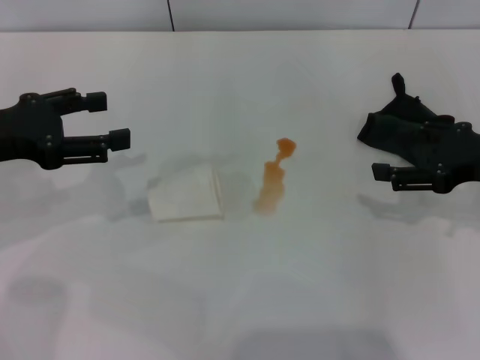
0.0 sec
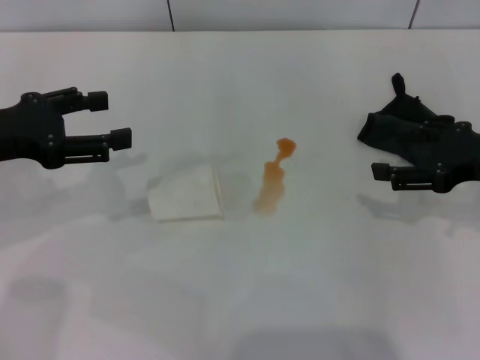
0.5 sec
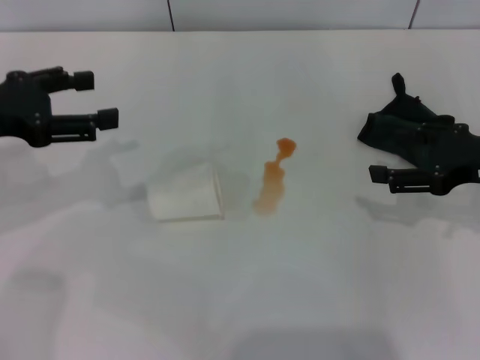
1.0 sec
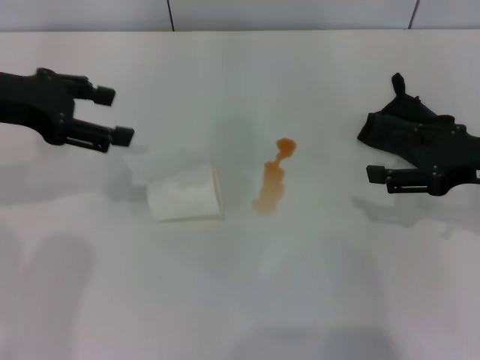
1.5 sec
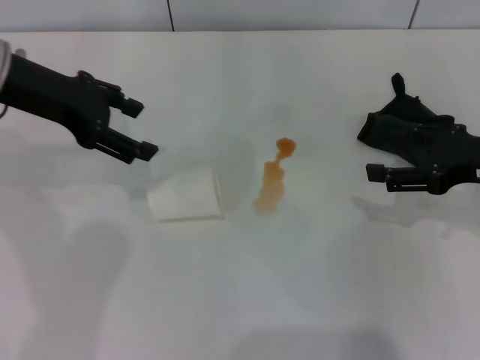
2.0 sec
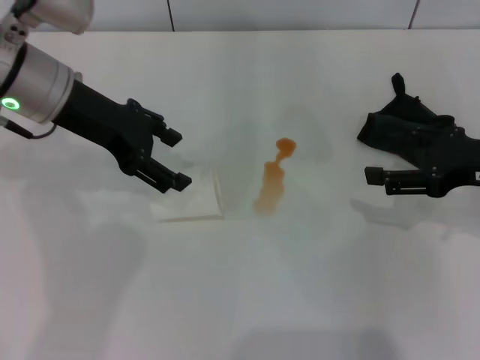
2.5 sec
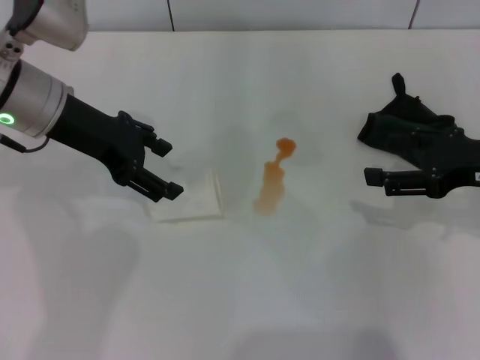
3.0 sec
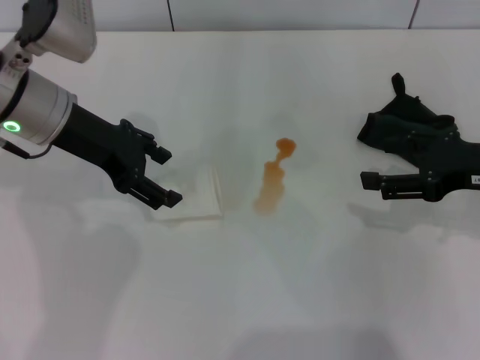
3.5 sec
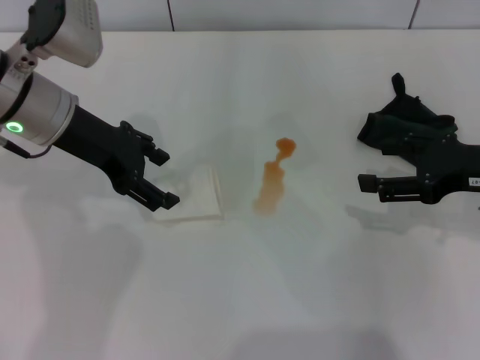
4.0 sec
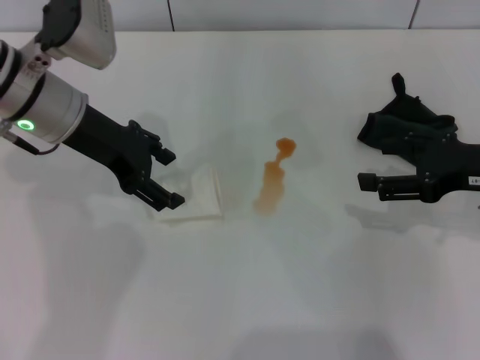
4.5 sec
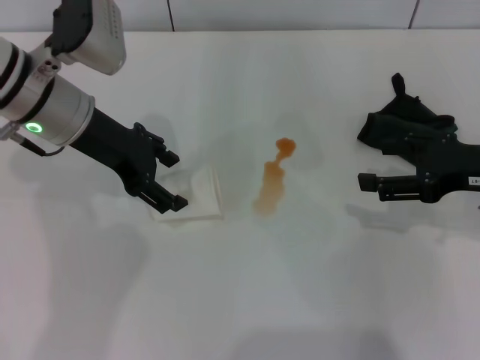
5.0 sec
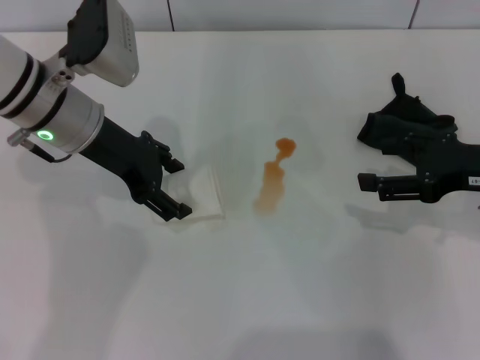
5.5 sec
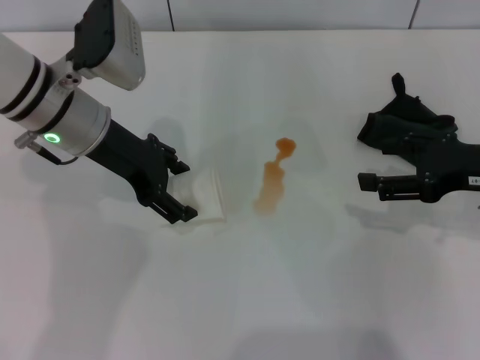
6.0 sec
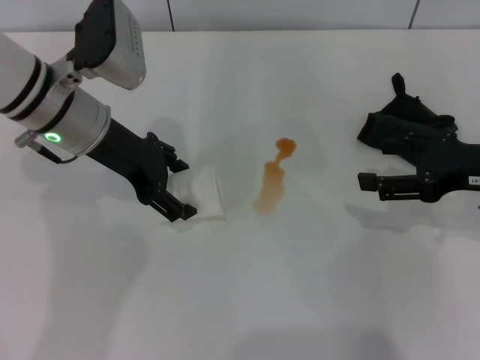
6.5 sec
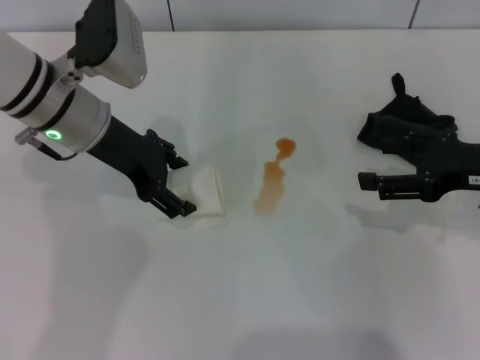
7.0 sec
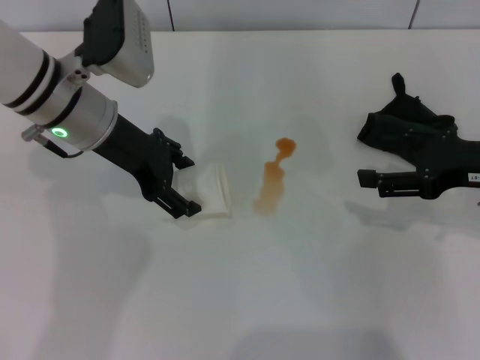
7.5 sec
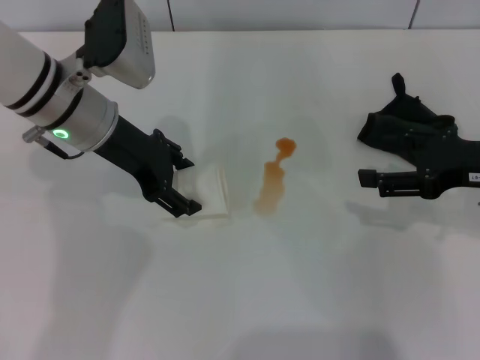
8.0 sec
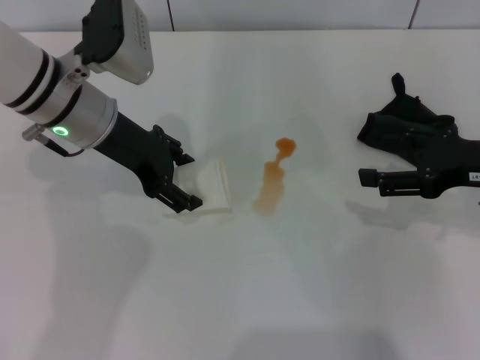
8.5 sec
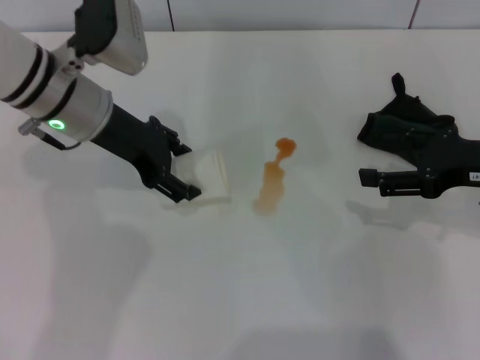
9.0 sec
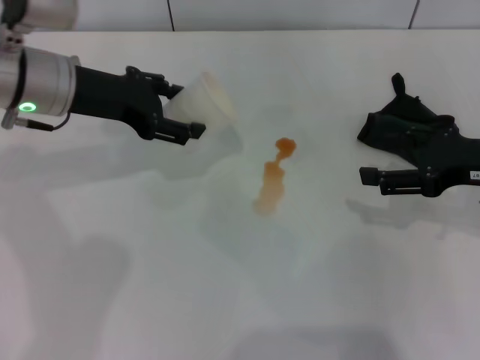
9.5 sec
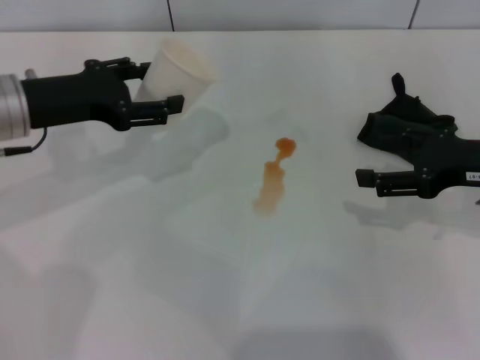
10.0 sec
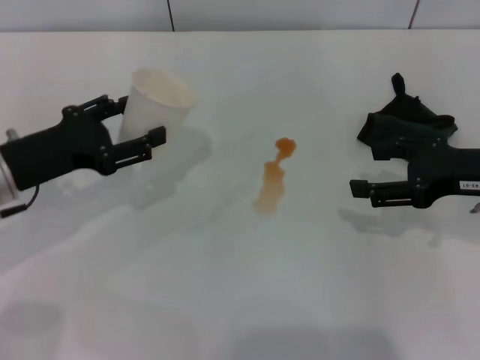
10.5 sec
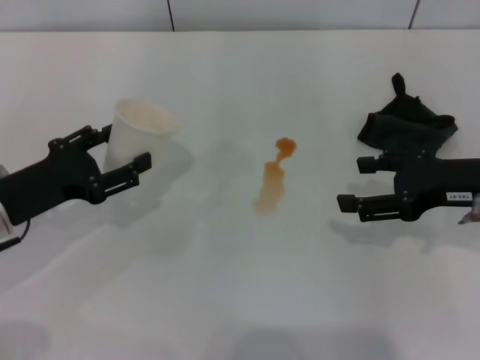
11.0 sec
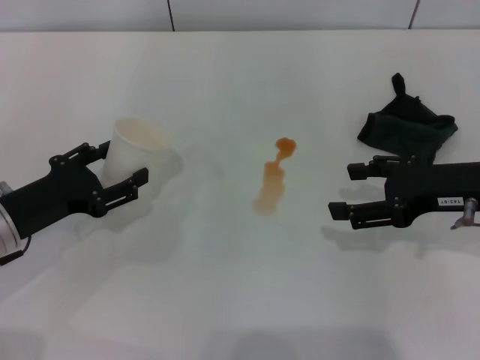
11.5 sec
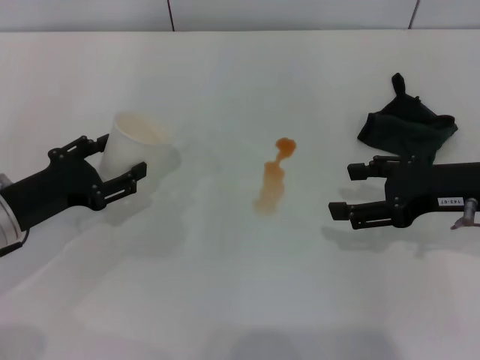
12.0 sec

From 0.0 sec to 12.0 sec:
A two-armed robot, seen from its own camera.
Step, from 0.0 sec to 8.0 sec: Grasp the paper cup with the left gripper.
From 0.0 sec to 2.0 sec: The left gripper goes roughly 10 cm forward and to the right.
From 2.0 sec to 4.0 sec: The left gripper changes place by some 5 cm.
From 4.0 sec to 6.0 sec: There are only small adjustments of the grippers.
From 6.0 sec to 8.0 sec: The two grippers keep their place.
From 8.0 sec to 10.0 sec: The left gripper goes approximately 10 cm to the left.
From 10.0 sec to 12.0 sec: The left gripper shifts approximately 10 cm downward and backward.

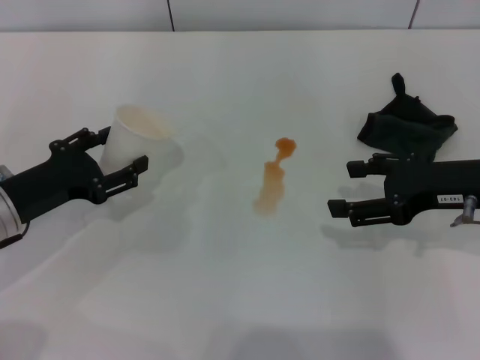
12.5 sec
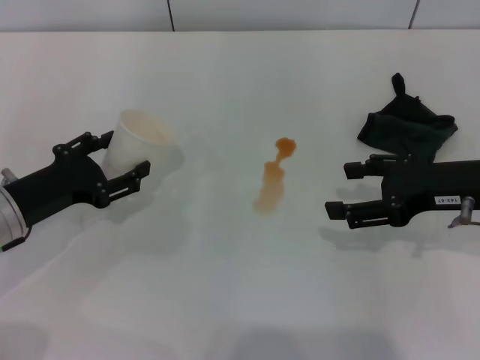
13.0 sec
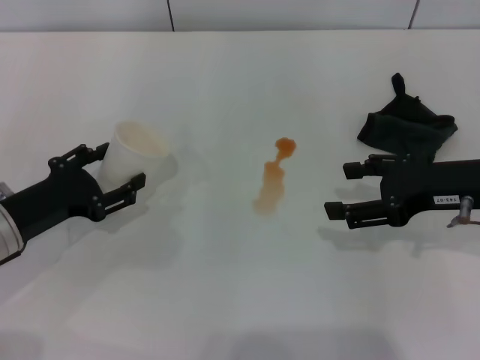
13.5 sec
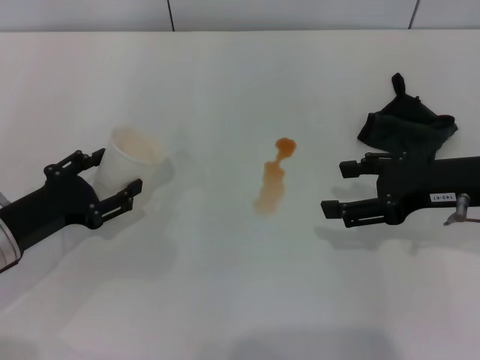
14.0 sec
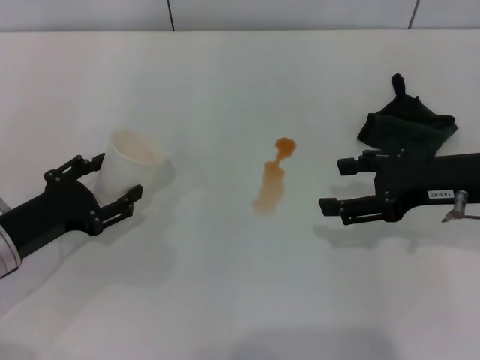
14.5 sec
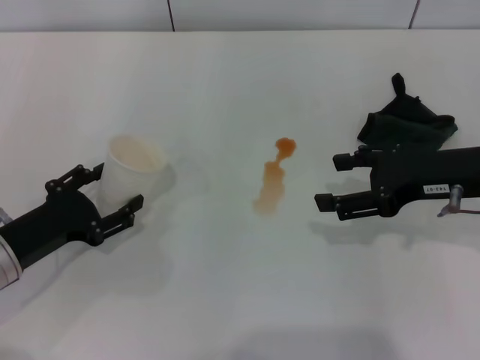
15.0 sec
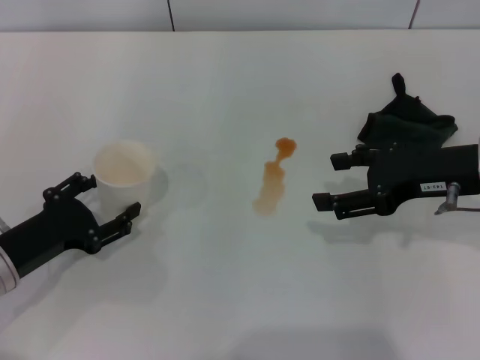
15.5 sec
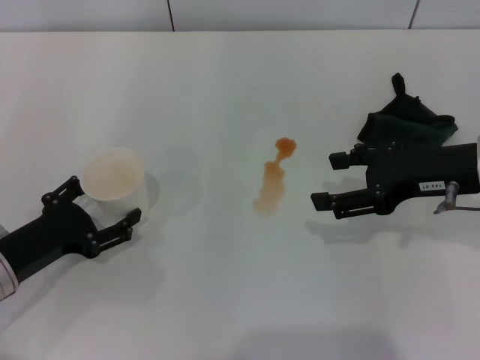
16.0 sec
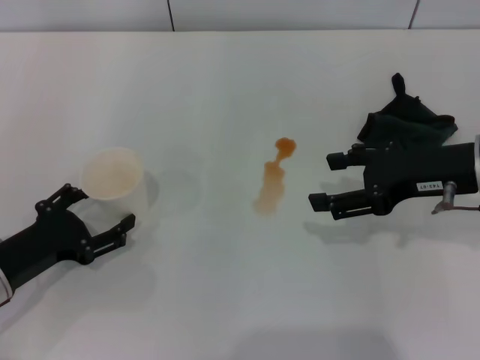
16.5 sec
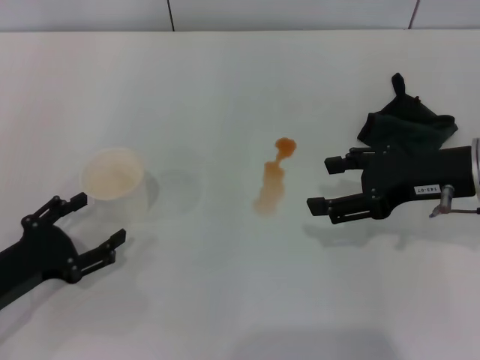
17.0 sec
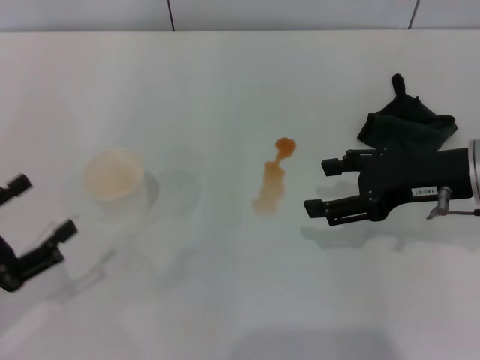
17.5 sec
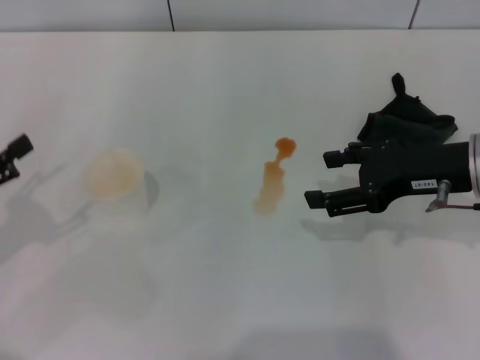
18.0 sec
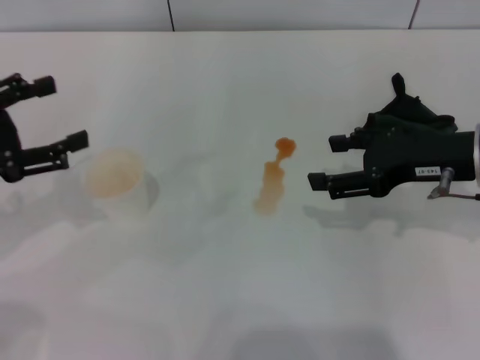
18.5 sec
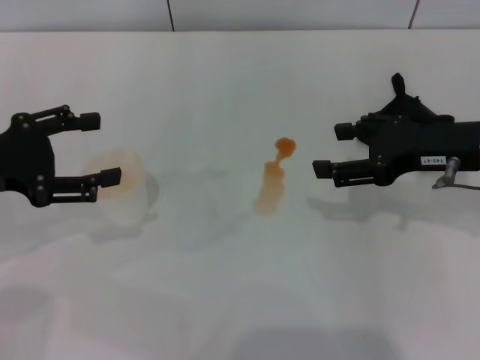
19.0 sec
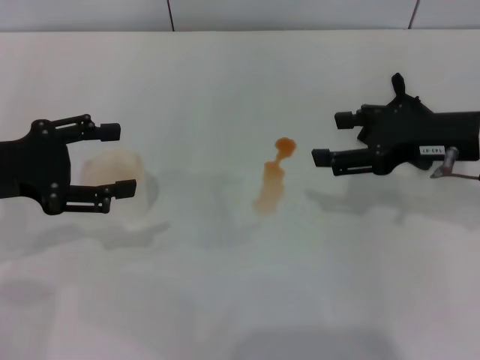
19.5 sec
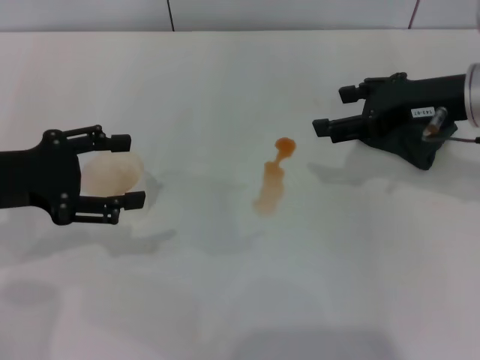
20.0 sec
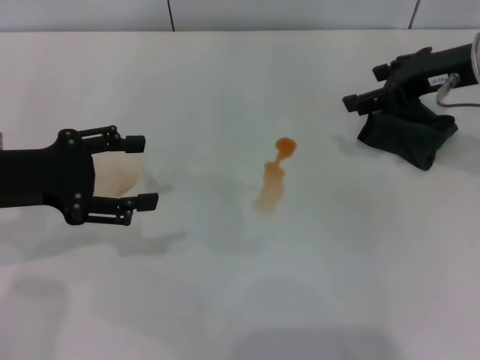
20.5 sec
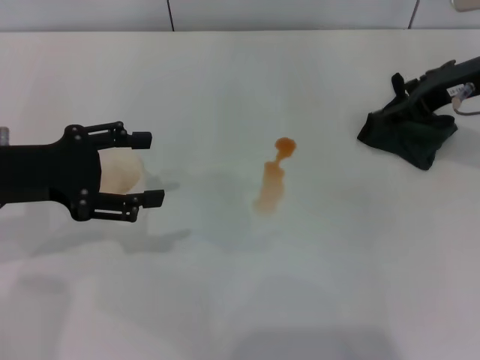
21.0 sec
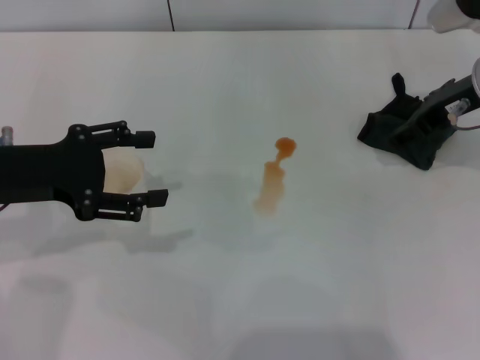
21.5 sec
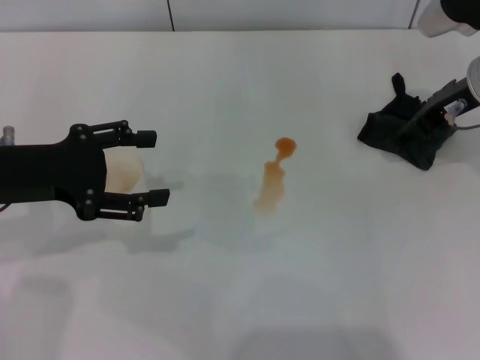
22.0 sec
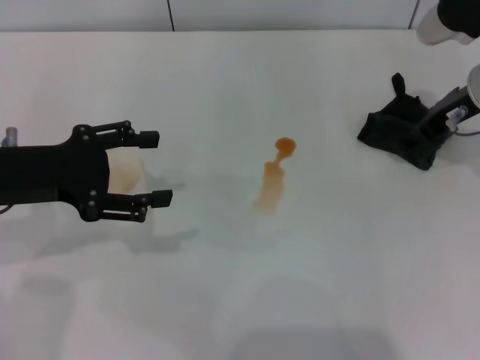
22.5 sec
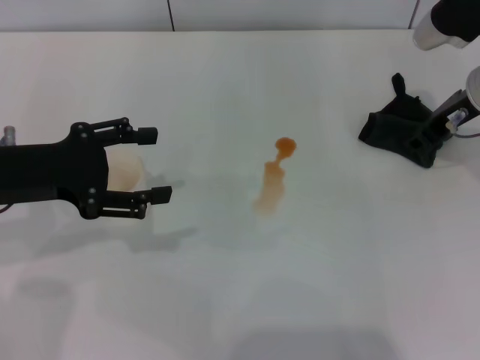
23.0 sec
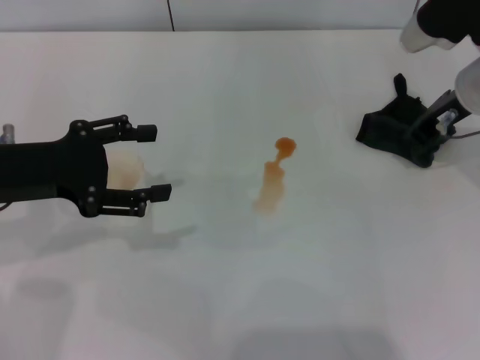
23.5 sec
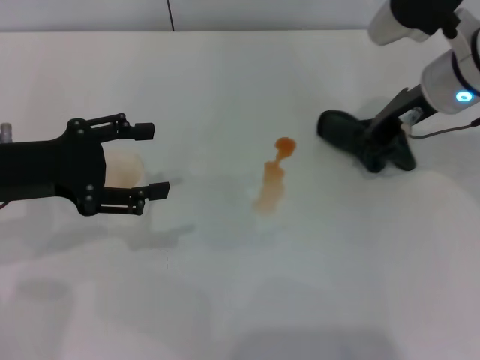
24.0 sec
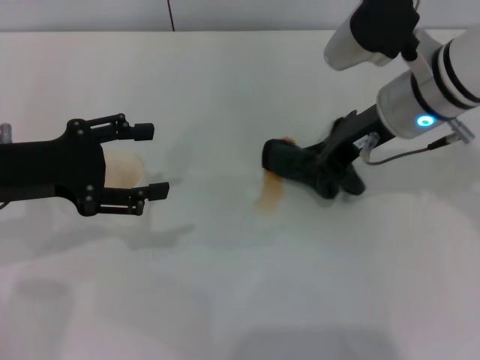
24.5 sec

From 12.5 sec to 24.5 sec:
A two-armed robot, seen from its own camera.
Step, from 12.5 sec to 17.0 sec: Stand the paper cup upright with the left gripper.
Step, from 17.5 sec to 23.0 sec: Grasp the rag with the right gripper.
From 12.5 sec to 14.5 sec: The grippers stay close to where they were, moving slightly.
From 14.5 sec to 16.5 sec: There are only small adjustments of the grippers.
From 16.5 sec to 18.5 sec: The left gripper is displaced upward by approximately 15 cm.
From 18.5 sec to 20.5 sec: The left gripper changes place by some 5 cm; the right gripper goes about 10 cm forward.
From 22.5 sec to 24.5 sec: The right gripper heads to the left, covering approximately 10 cm, and closes its fingers.

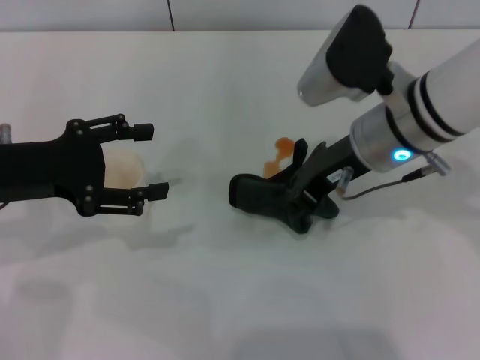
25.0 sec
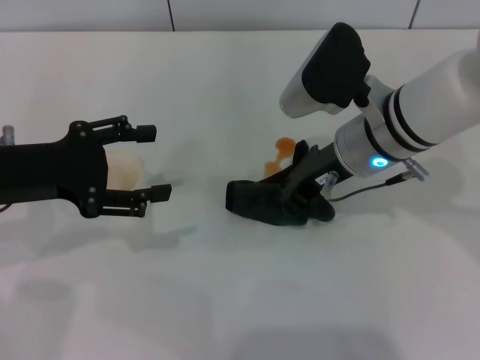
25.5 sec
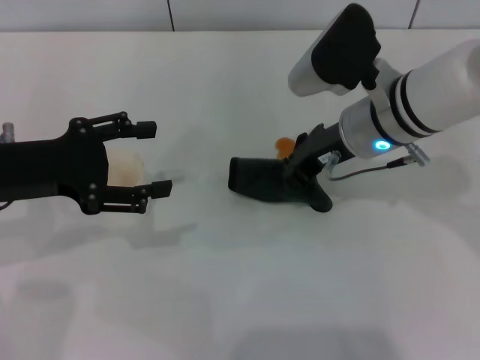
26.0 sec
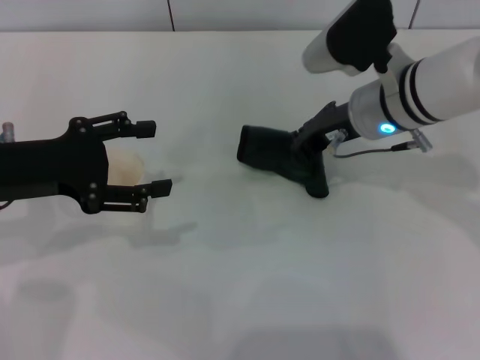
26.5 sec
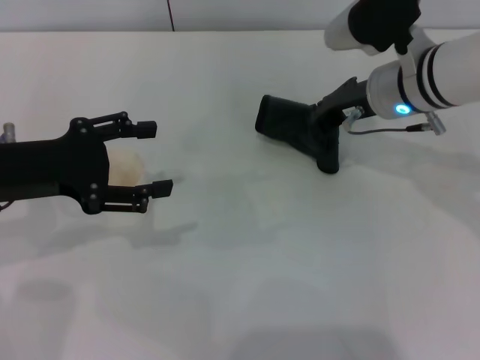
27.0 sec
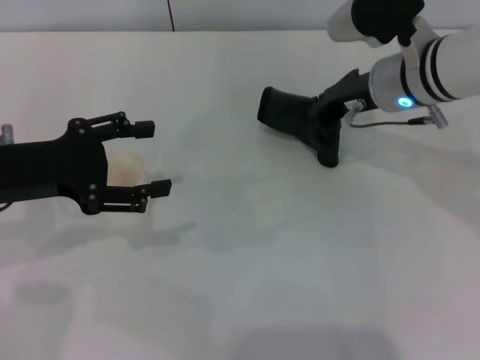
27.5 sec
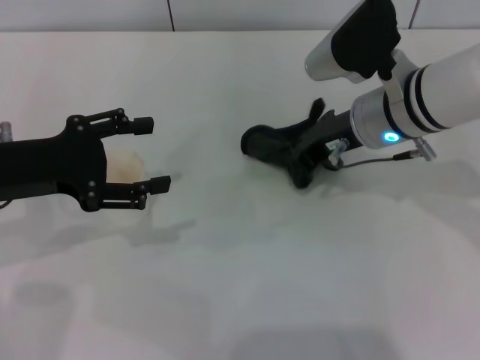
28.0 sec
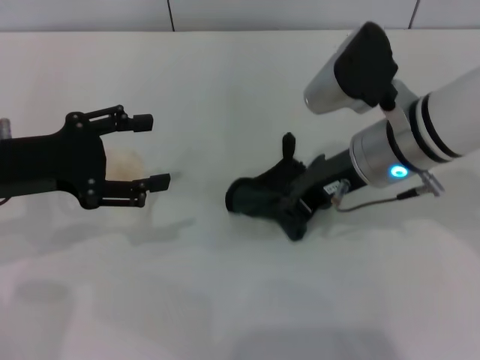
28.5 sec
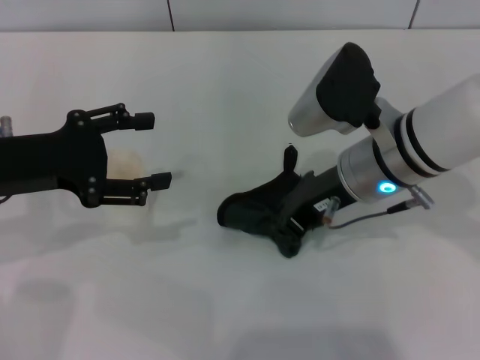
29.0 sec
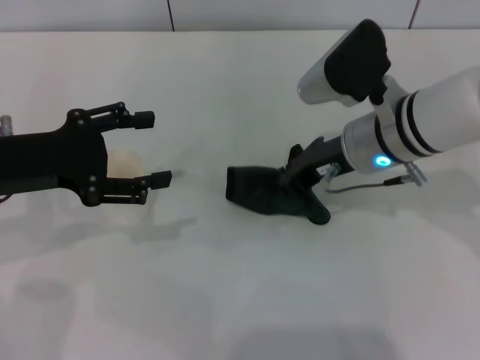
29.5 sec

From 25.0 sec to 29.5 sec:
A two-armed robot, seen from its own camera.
From 25.0 sec to 27.0 sec: The right gripper heads forward, covering roughly 5 cm.
